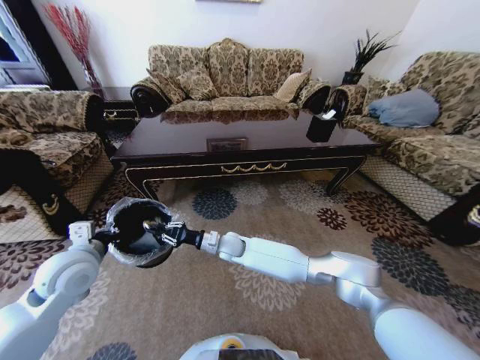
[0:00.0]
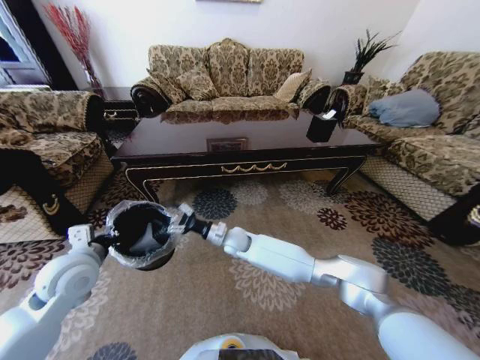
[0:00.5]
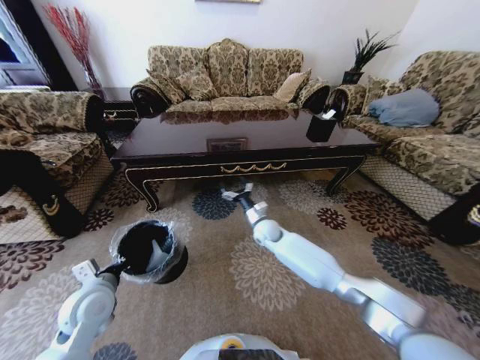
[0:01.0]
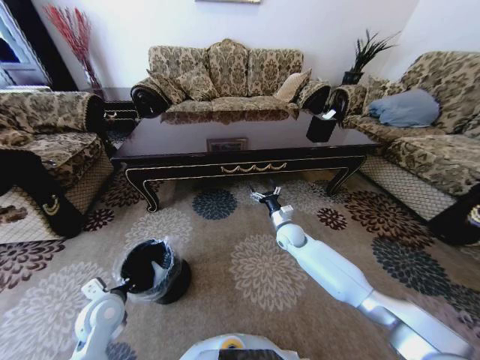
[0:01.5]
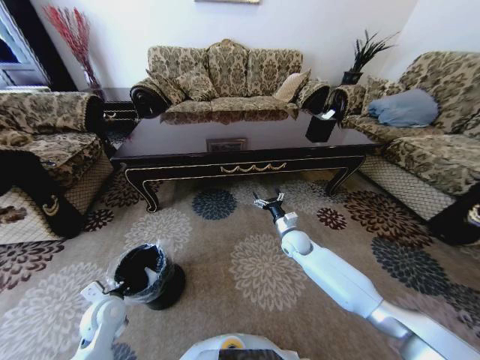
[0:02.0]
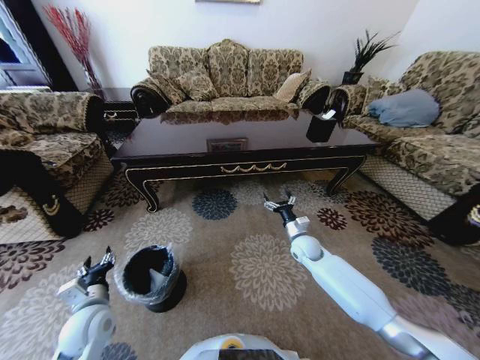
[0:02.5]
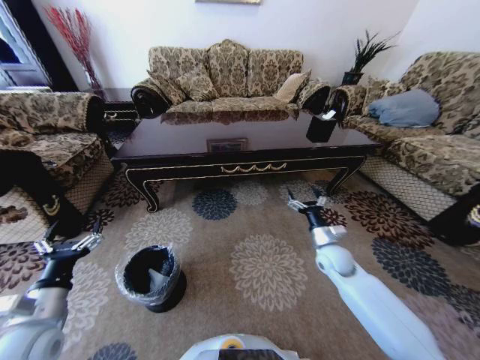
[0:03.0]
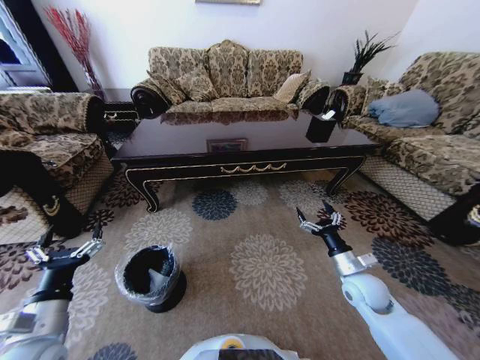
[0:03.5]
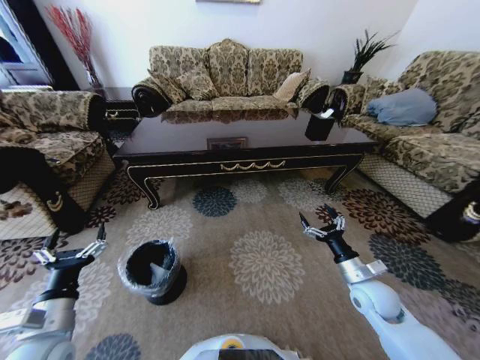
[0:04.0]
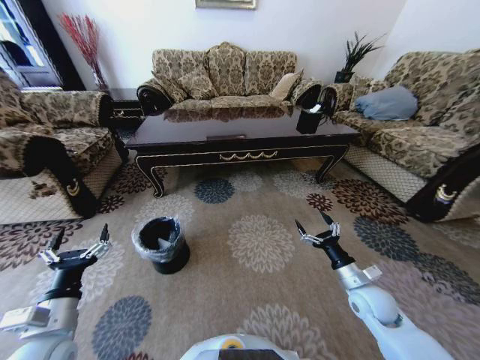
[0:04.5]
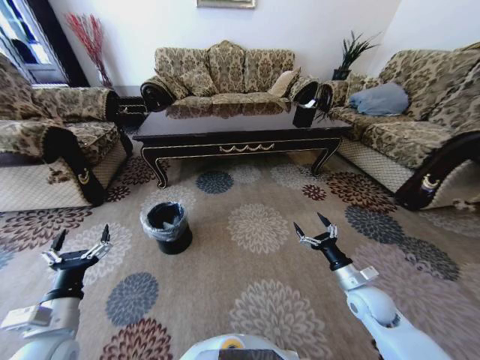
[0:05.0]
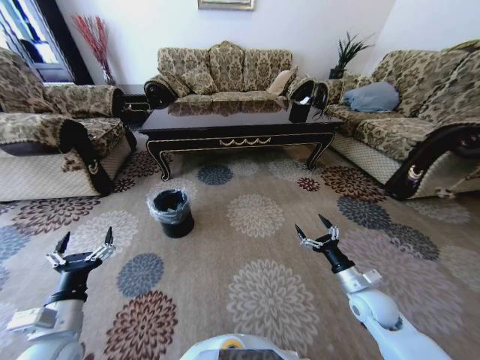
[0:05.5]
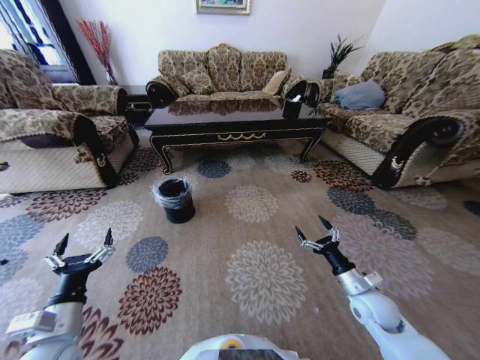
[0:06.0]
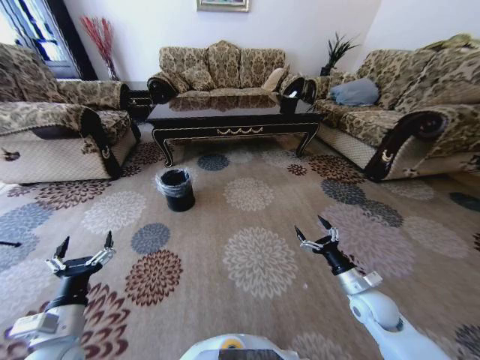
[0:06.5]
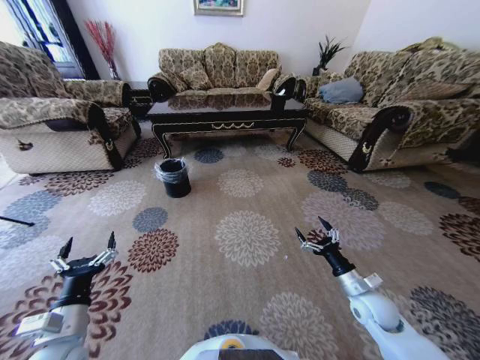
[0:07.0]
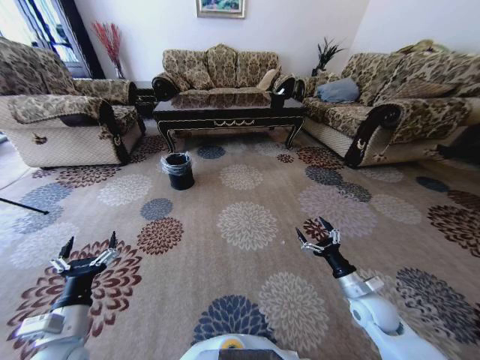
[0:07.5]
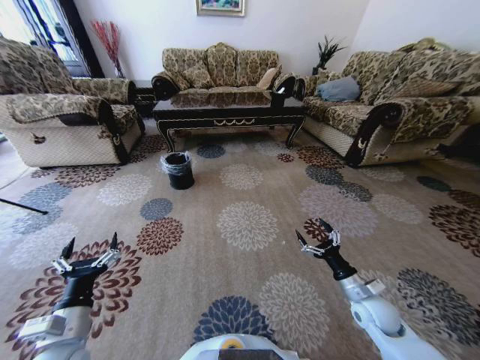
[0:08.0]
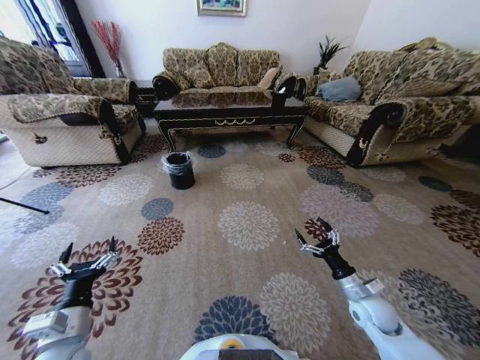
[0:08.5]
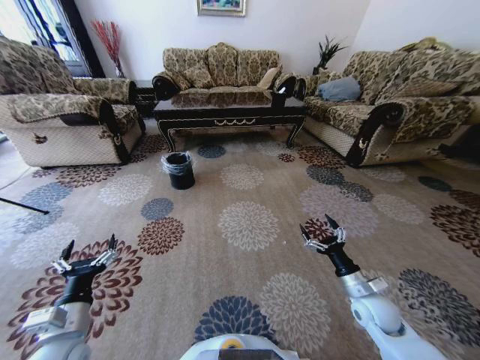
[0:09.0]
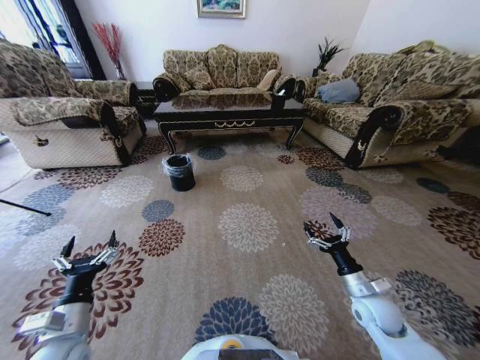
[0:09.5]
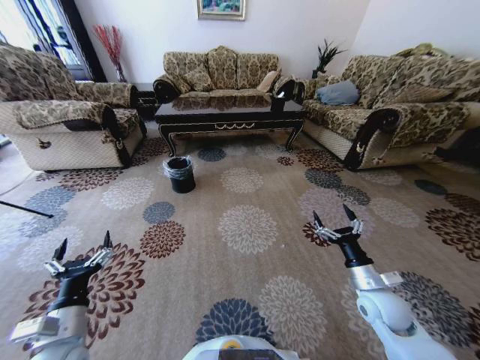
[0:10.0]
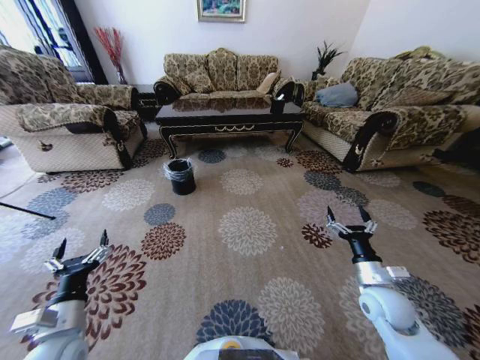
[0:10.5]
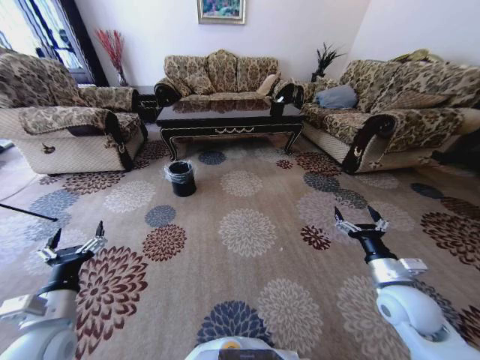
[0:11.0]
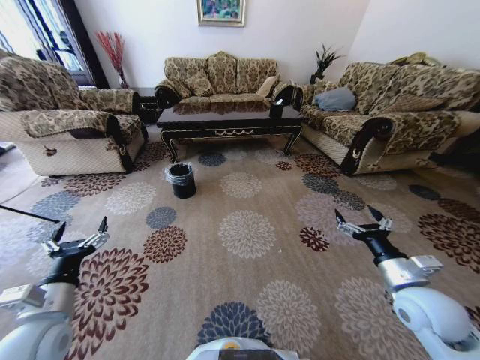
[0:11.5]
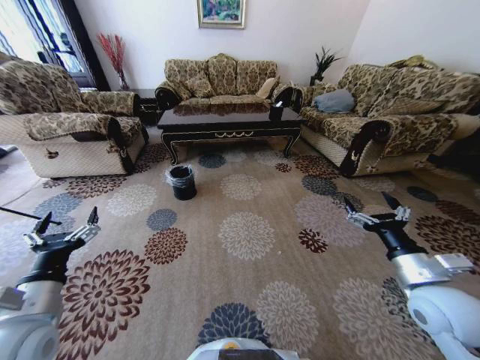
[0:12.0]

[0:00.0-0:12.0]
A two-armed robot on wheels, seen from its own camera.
Task of the whole recording: Move to the front of the table and pick up the trash from the floor, then place it into the trash bin.
0:00.0 to 0:02.0: The left gripper goes about 20 cm downward; the right gripper heads to the right, covering approximately 25 cm, and opens.
0:02.0 to 0:04.0: The left gripper moves upward and backward, approximately 15 cm, and opens up, while the right gripper moves backward and to the right, some 25 cm.
0:10.0 to 0:12.0: The right gripper shifts some 10 cm upward, while the left gripper travels upward by some 10 cm.

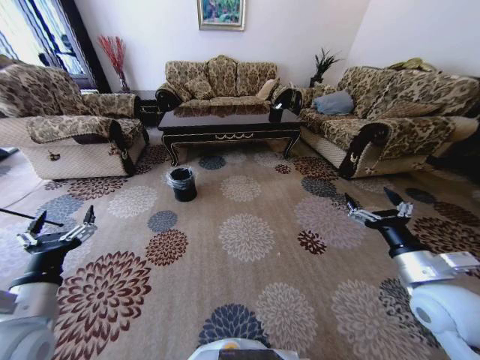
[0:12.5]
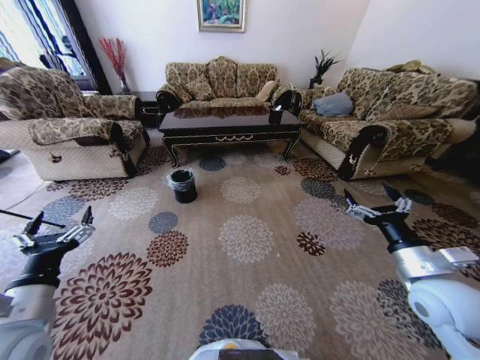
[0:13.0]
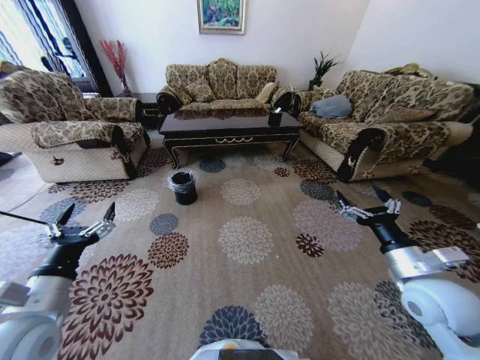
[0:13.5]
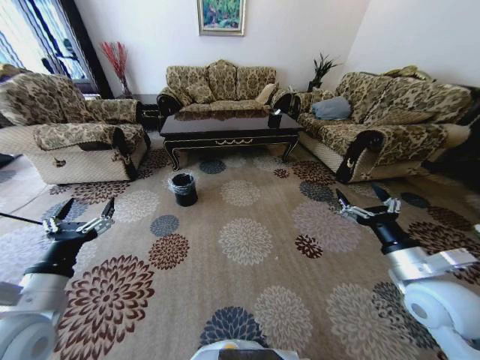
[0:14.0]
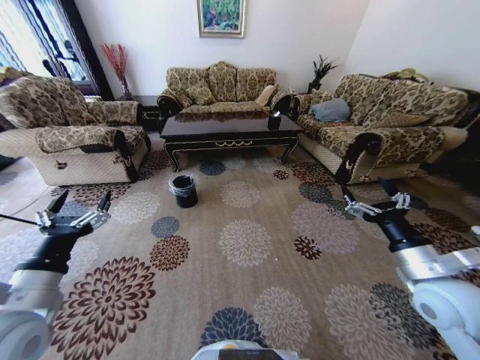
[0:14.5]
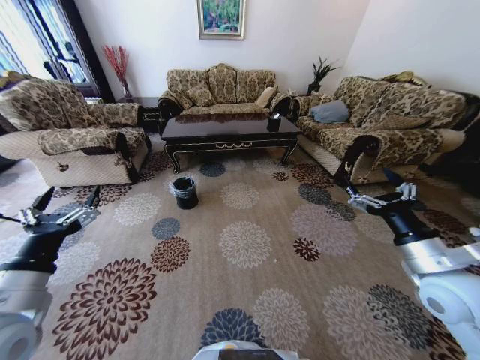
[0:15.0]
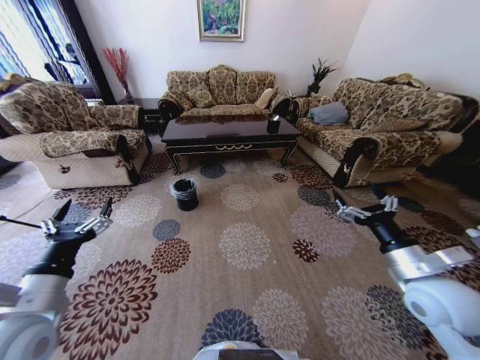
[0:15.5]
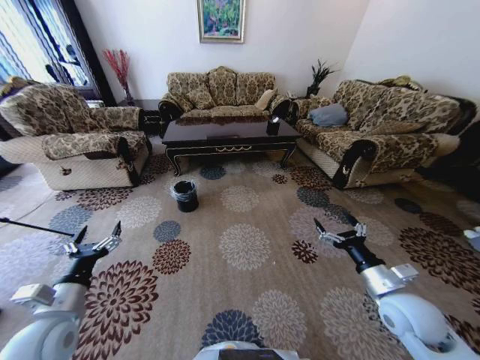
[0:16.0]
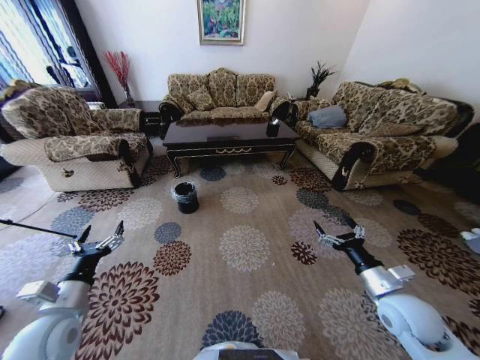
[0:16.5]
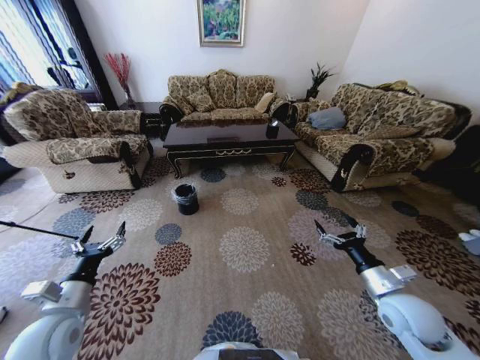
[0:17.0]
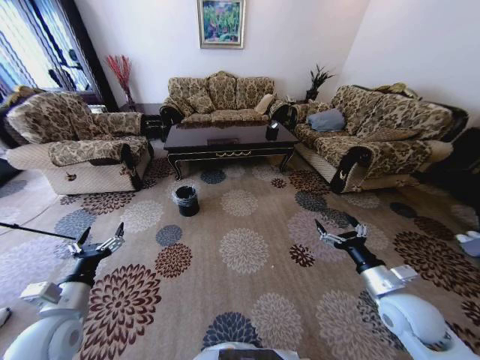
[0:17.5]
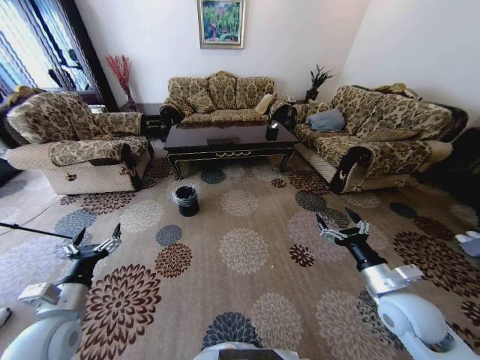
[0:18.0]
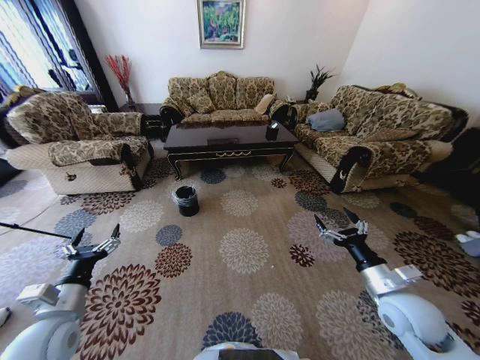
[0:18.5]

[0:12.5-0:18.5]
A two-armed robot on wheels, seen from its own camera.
Task of the whole recording: Move to the front of the table and pick up the trash from the floor, then place it into the trash bin.
0:14.5 to 0:16.5: The two grippers go roughly 10 cm downward.
0:16.5 to 0:18.5: The grippers stay close to where they were, moving slightly.
